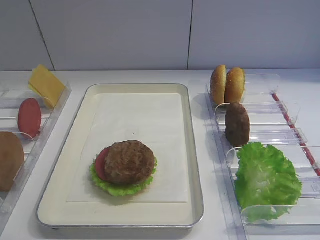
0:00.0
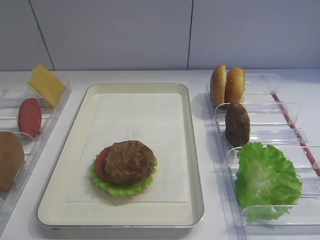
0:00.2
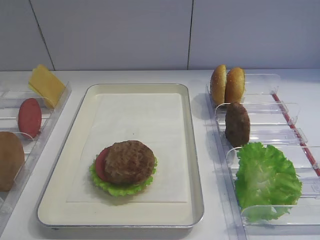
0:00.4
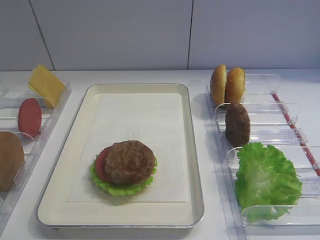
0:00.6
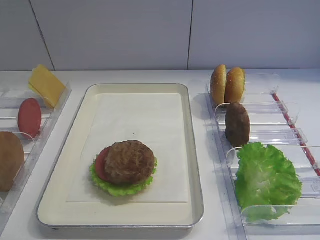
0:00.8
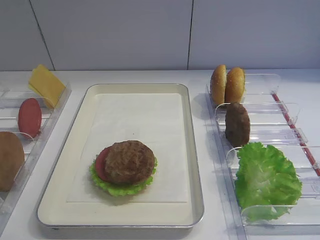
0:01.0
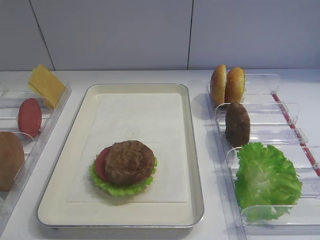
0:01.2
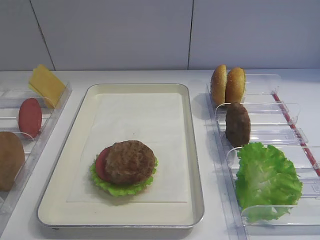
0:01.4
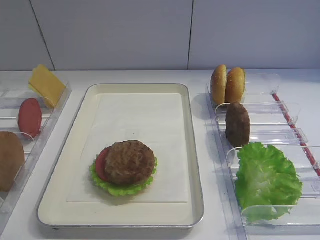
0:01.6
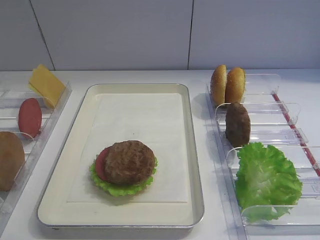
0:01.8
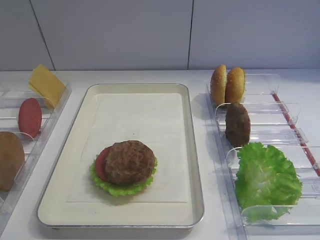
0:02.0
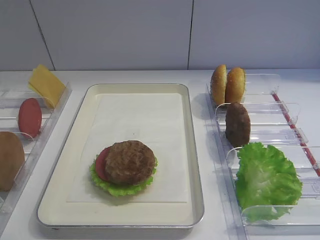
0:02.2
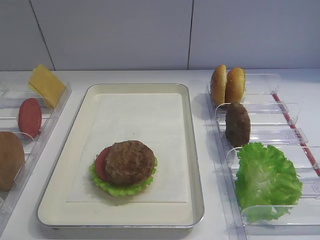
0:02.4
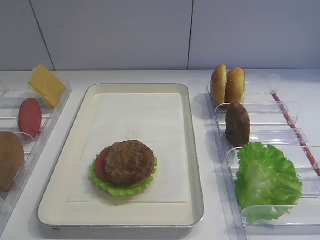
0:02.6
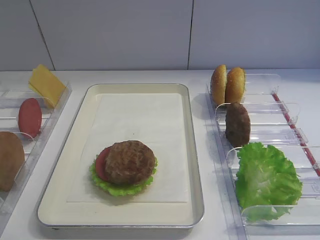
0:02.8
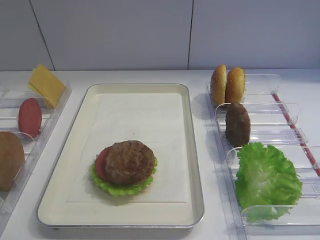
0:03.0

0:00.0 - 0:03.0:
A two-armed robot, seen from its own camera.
0:00.0 - 0:03.0: Neither gripper changes place.

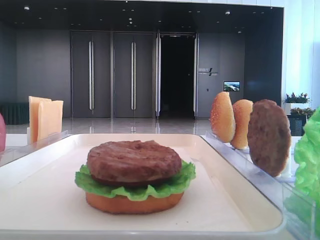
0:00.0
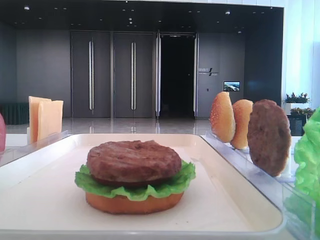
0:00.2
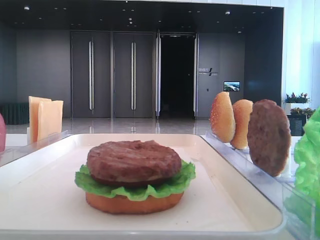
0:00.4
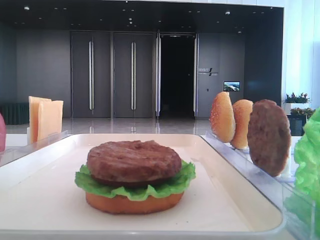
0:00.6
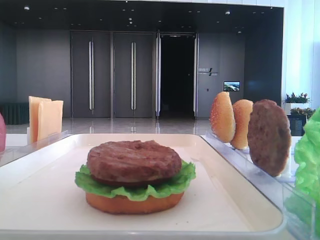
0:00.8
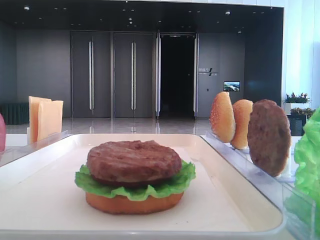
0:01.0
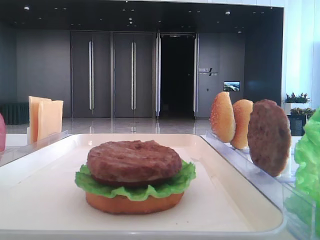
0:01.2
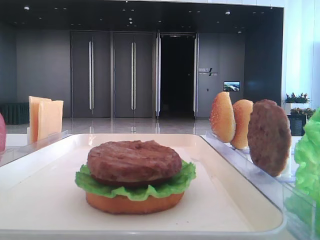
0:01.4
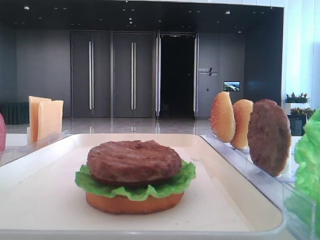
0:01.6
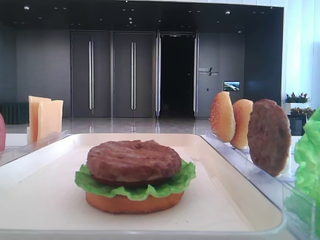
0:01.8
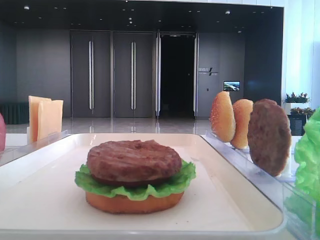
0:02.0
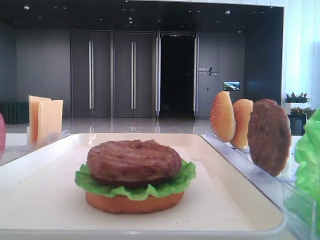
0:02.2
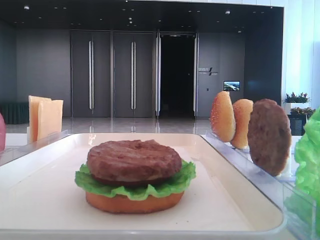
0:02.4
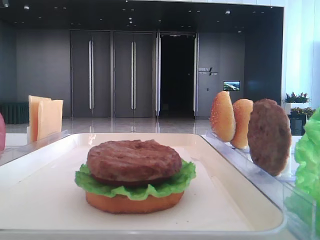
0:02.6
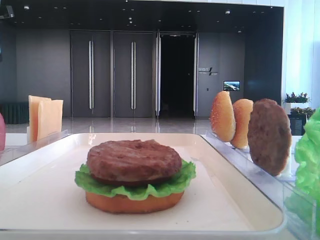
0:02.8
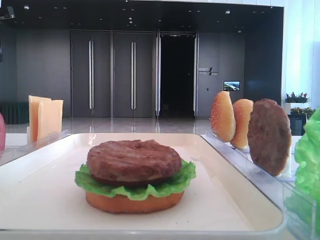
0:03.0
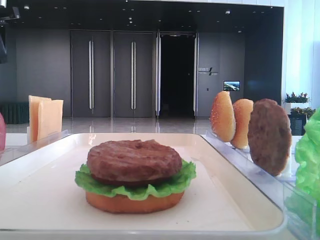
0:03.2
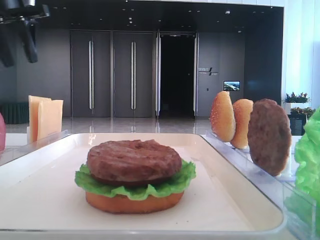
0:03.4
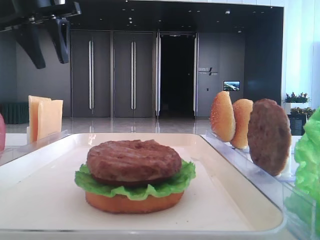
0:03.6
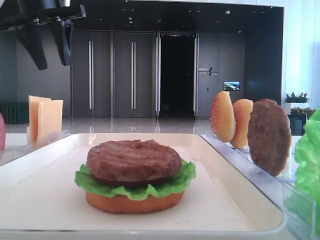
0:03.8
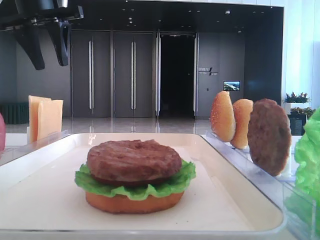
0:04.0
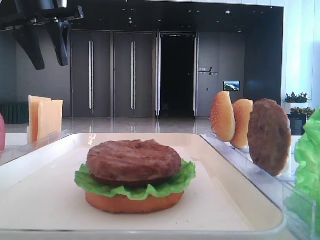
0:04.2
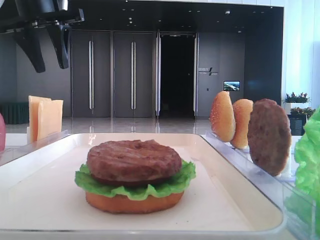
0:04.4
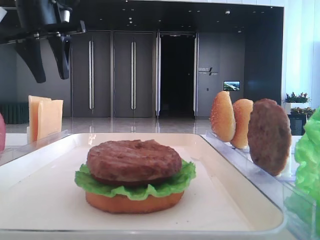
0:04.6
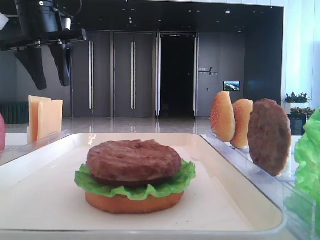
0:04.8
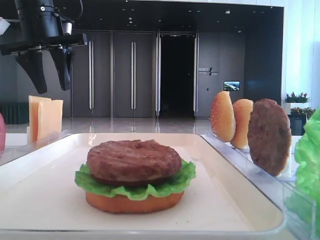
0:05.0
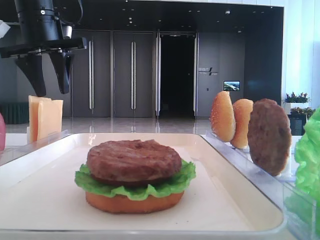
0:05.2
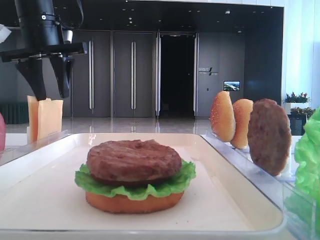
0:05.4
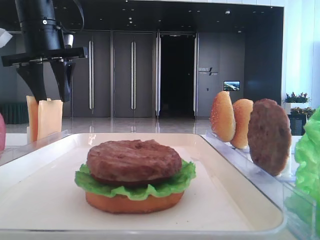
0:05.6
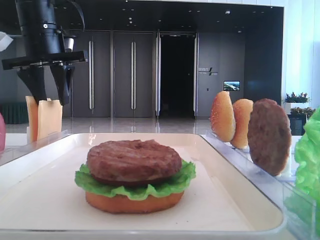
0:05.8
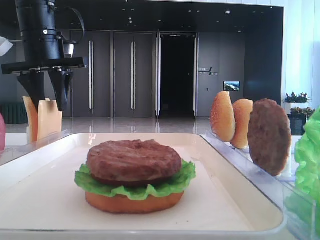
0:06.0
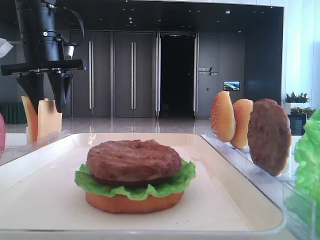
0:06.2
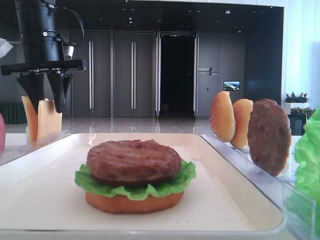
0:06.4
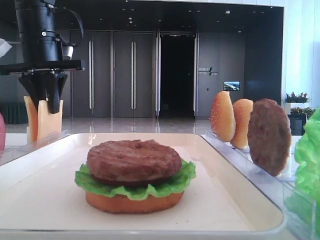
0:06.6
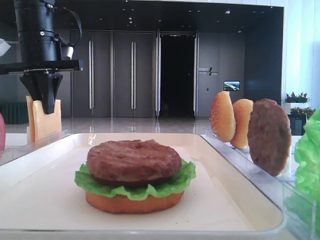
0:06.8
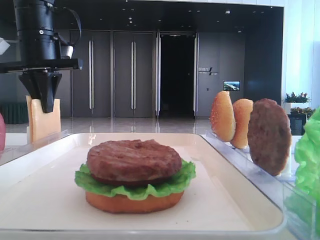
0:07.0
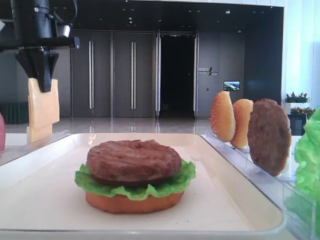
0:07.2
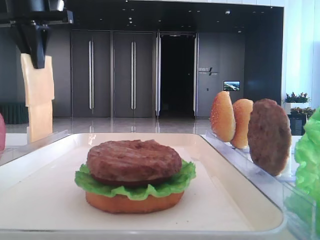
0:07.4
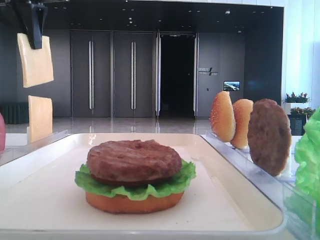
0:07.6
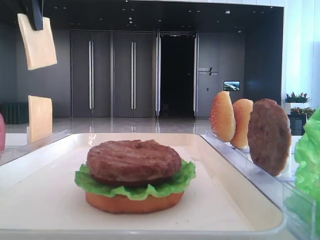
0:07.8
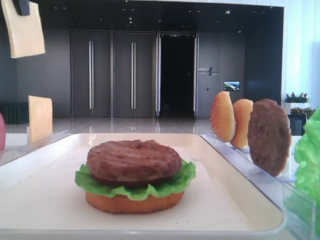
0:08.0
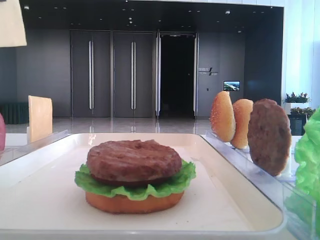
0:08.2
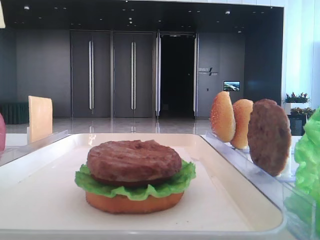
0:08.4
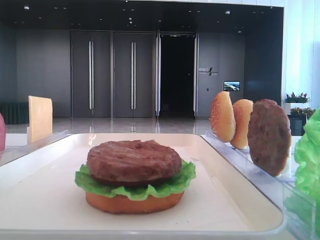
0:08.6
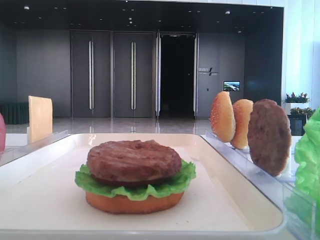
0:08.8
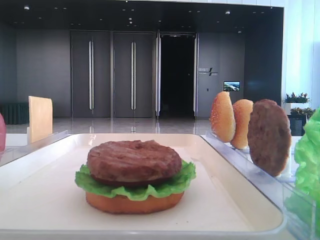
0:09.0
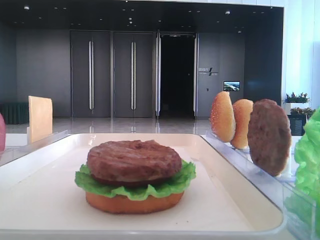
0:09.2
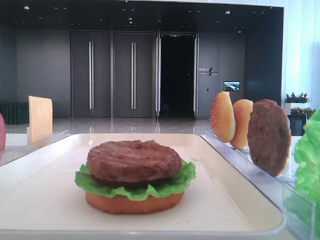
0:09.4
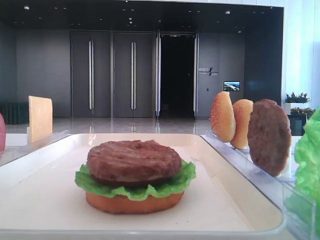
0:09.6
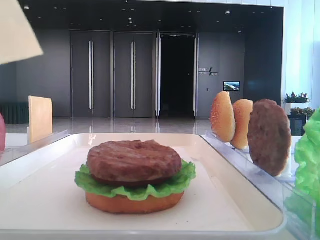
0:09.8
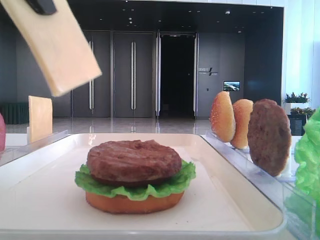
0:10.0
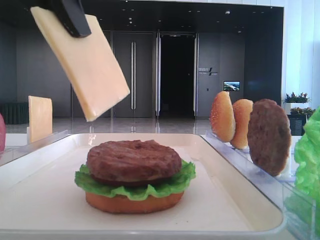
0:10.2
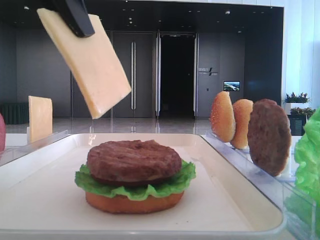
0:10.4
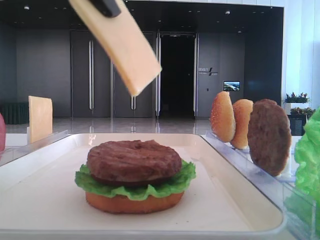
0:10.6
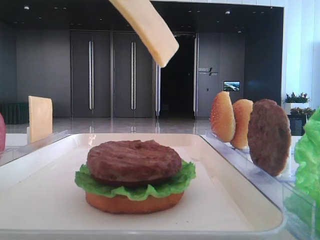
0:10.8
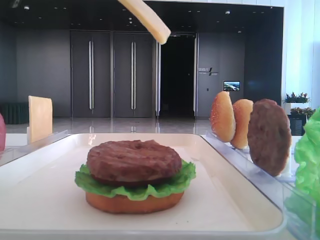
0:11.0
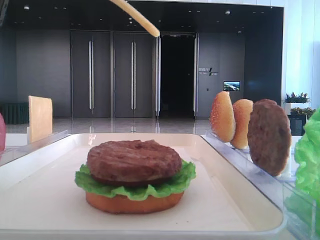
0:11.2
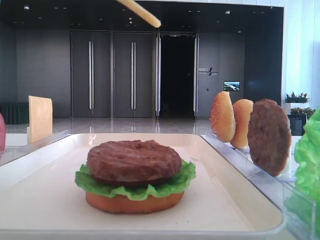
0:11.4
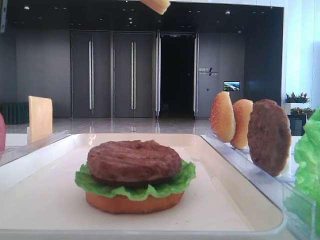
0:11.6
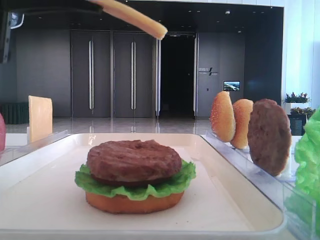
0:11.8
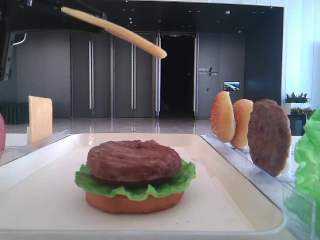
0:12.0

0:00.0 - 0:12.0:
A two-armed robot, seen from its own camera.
Step, 0:00.0 - 0:06.8: Pick up the cheese slice with the left hand.
0:01.6 - 0:03.0: The left gripper shifts some 30 cm forward.
0:03.0 - 0:04.4: The left gripper is displaced to the right by about 15 cm.
0:04.4 - 0:06.0: The left gripper goes roughly 5 cm downward.
0:06.0 - 0:07.6: The left gripper moves upward, some 10 cm, and closes its fingers.
0:07.6 - 0:09.0: The left gripper moves backward, about 25 cm.
0:09.0 - 0:10.4: The left gripper goes about 15 cm to the right and downward.
0:10.4 - 0:12.0: The left gripper travels downward and to the left by roughly 10 cm.

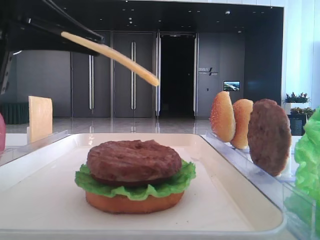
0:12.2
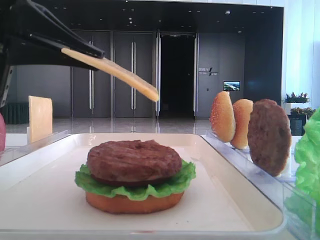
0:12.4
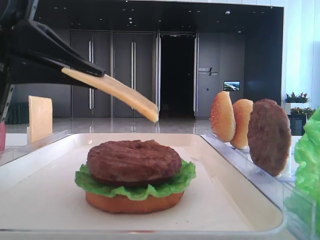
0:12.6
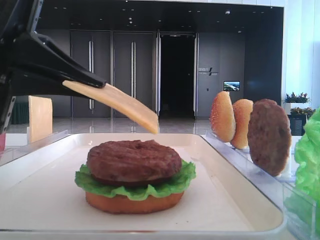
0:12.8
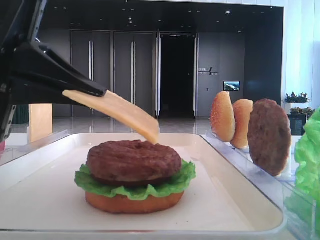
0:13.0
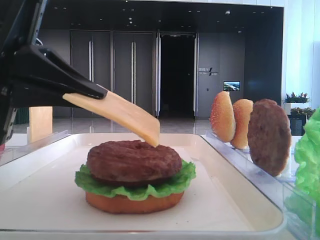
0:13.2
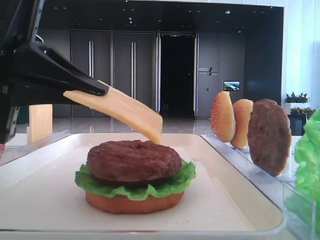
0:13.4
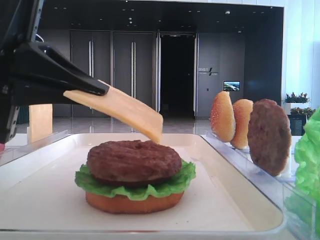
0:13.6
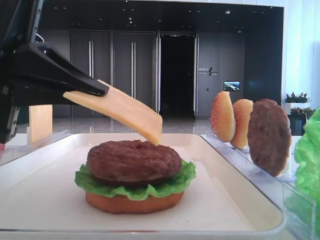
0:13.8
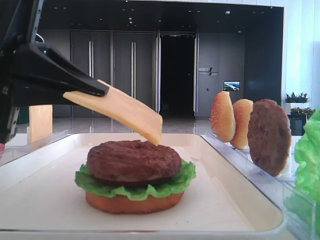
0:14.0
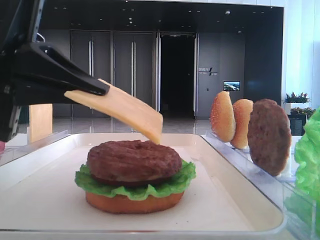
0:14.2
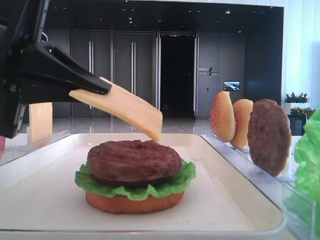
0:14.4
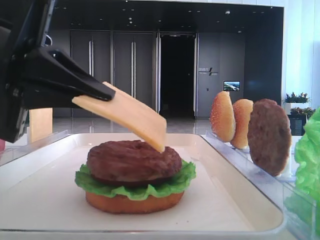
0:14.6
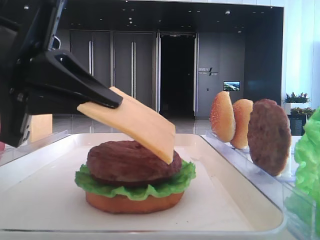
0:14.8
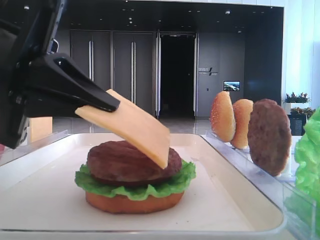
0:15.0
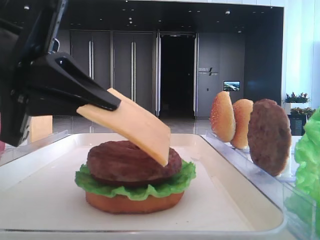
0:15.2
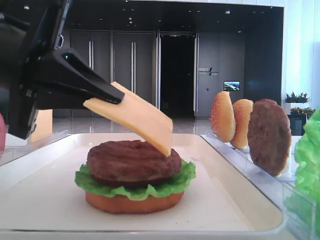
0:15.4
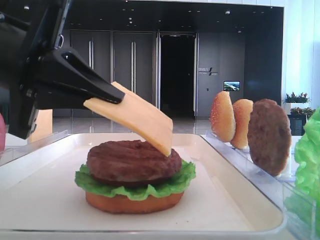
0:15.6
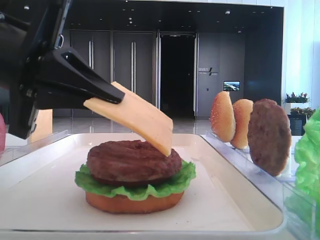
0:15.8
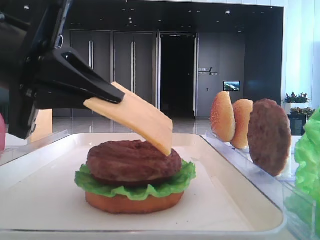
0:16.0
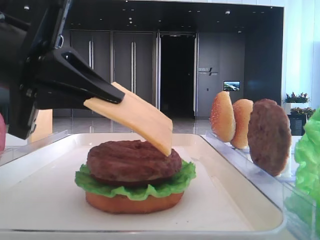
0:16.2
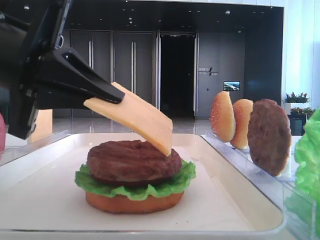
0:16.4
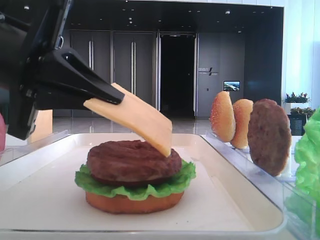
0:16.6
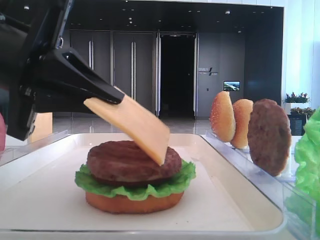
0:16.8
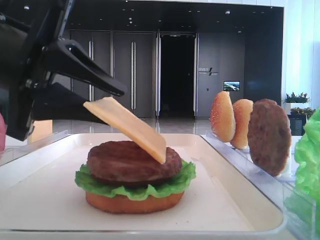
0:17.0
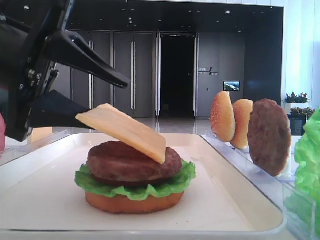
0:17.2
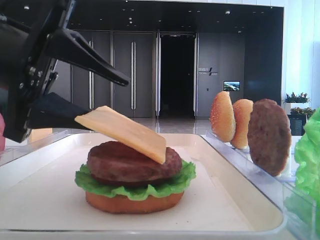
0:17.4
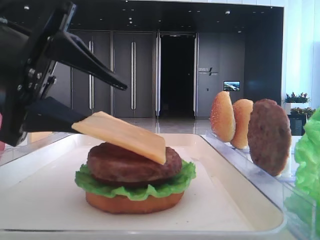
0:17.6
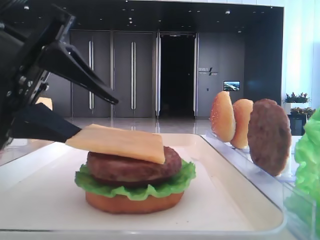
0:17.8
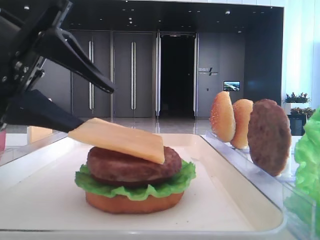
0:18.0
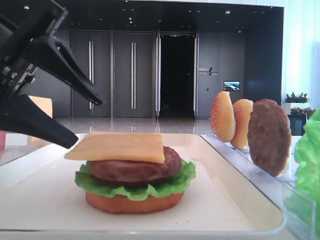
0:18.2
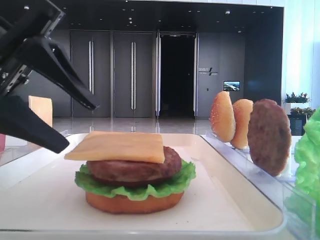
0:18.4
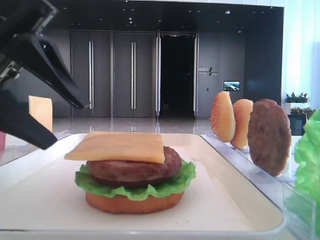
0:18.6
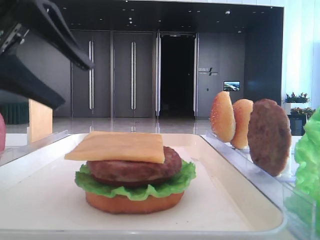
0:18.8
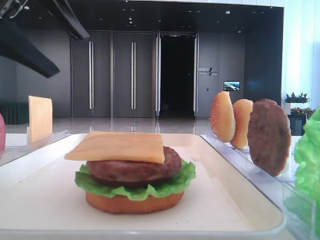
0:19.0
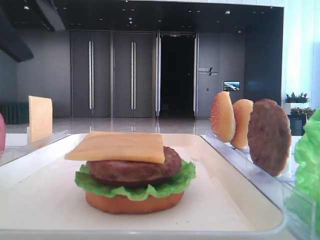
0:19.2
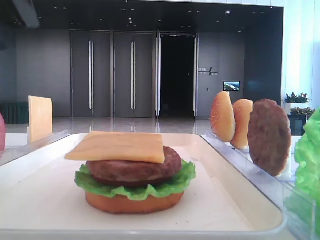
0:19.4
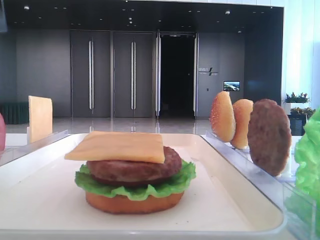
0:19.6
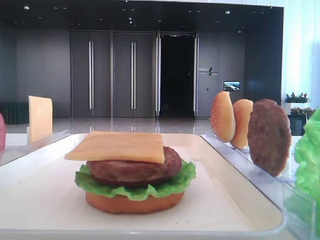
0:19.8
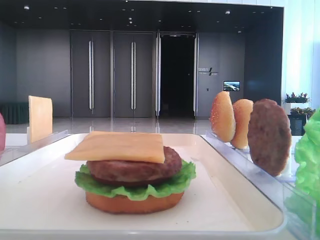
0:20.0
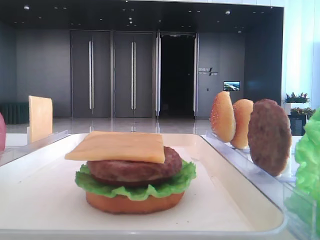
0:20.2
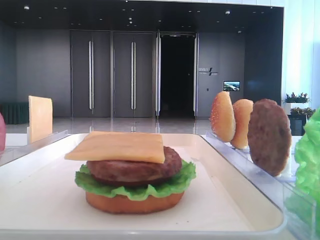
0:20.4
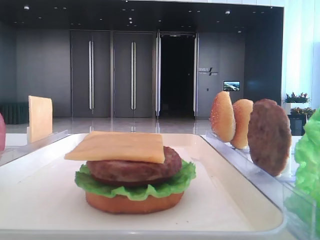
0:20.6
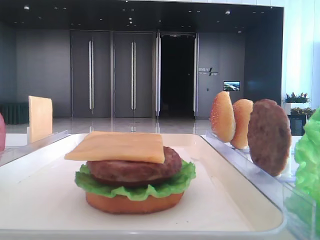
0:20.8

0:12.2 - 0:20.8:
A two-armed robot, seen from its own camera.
Step, 0:12.2 - 0:18.0: Place the cheese slice on the patty with the left hand.
0:12.2 - 0:15.0: The grippers make only small movements.
0:15.0 - 0:16.6: Both grippers stay put.
0:16.6 - 0:18.0: The left gripper opens its fingers.
0:18.0 - 0:19.4: The left gripper moves upward, roughly 10 cm.
